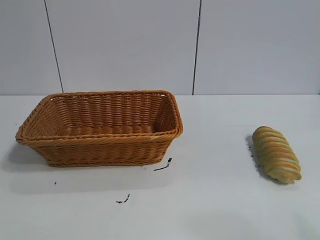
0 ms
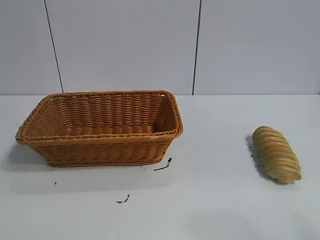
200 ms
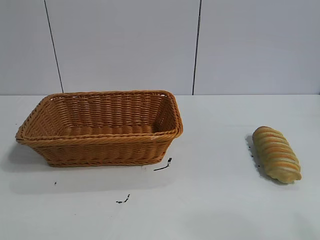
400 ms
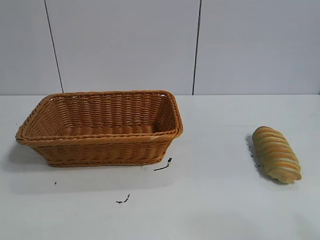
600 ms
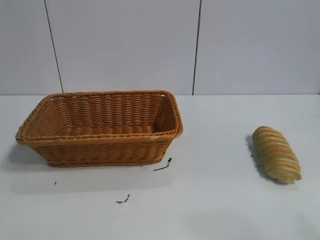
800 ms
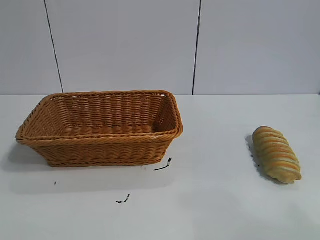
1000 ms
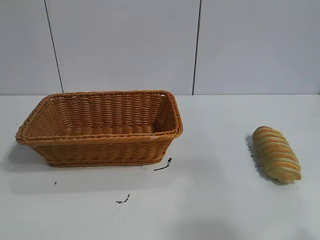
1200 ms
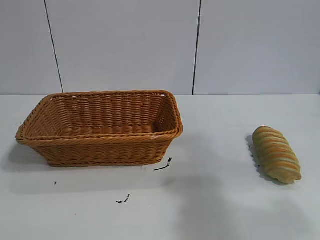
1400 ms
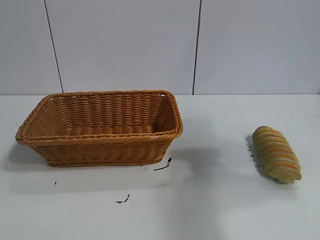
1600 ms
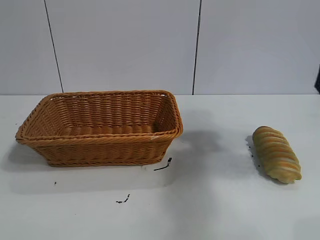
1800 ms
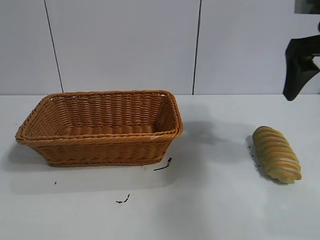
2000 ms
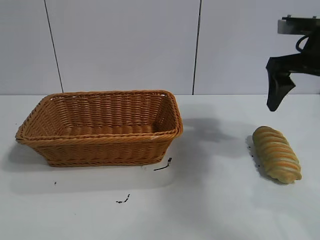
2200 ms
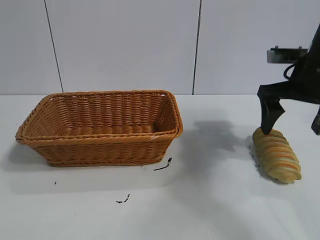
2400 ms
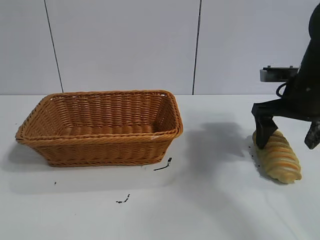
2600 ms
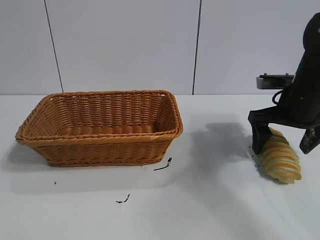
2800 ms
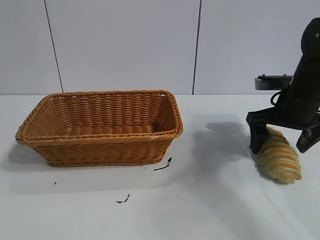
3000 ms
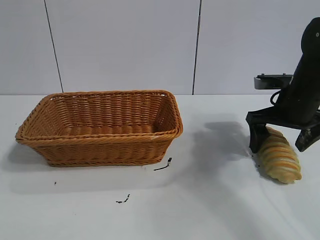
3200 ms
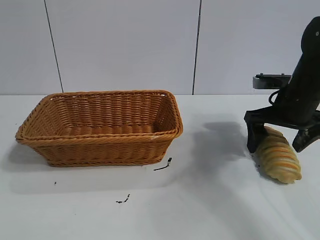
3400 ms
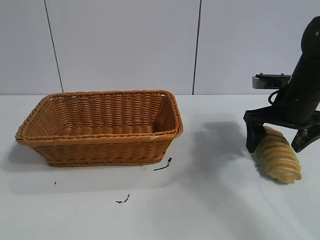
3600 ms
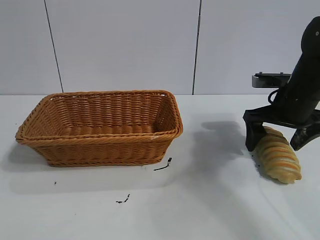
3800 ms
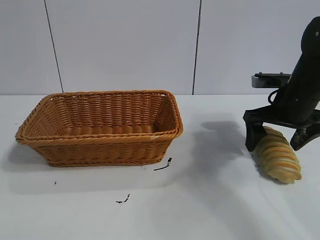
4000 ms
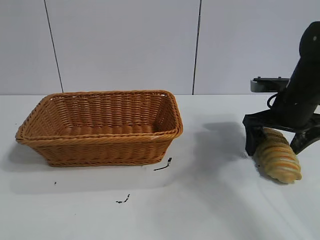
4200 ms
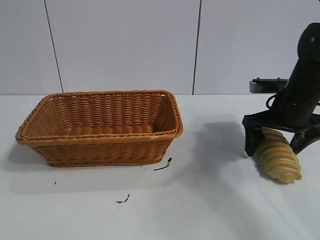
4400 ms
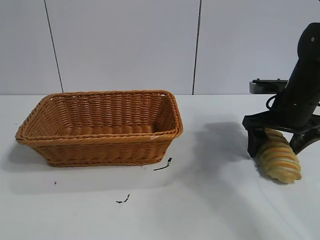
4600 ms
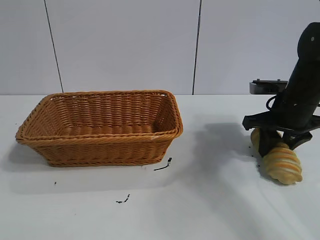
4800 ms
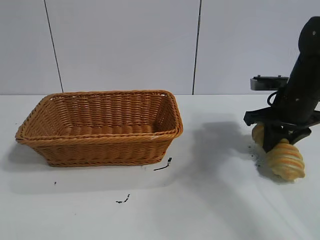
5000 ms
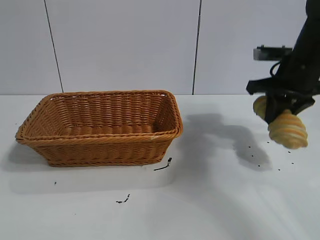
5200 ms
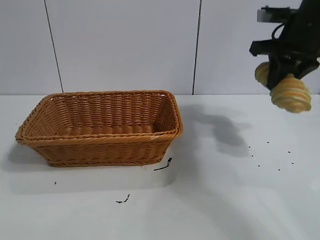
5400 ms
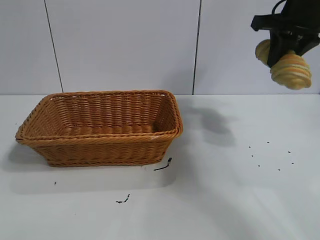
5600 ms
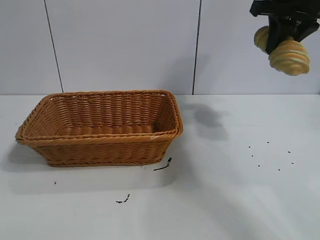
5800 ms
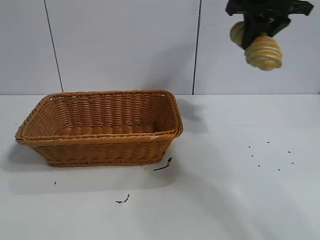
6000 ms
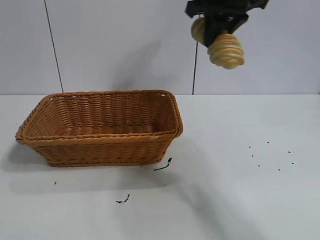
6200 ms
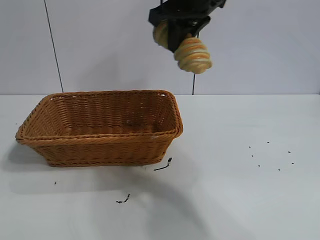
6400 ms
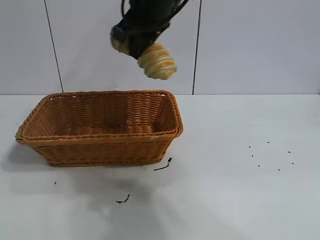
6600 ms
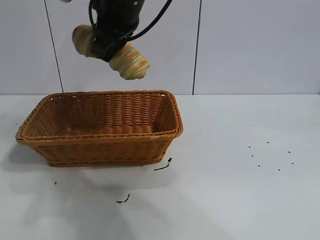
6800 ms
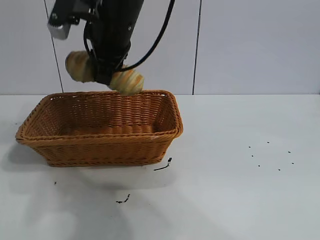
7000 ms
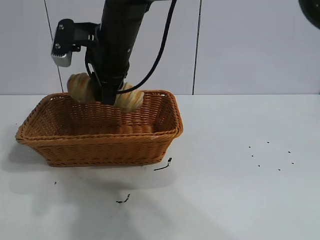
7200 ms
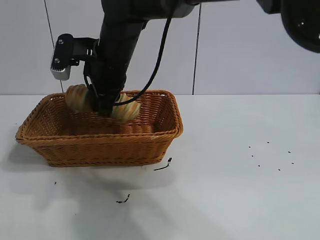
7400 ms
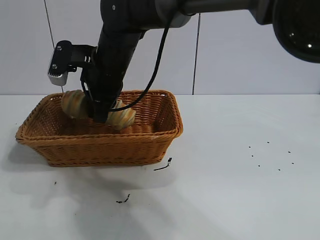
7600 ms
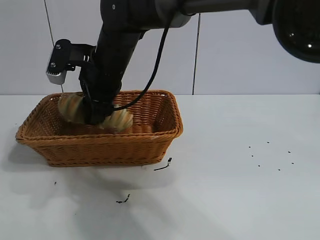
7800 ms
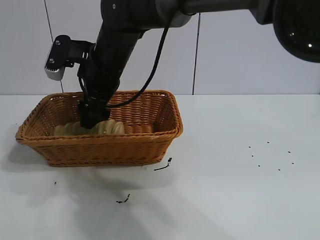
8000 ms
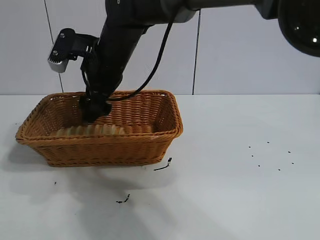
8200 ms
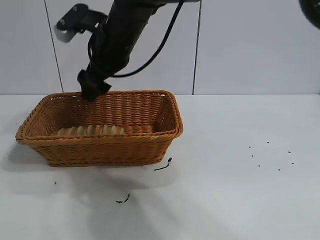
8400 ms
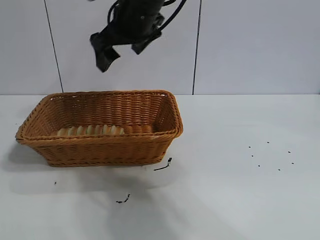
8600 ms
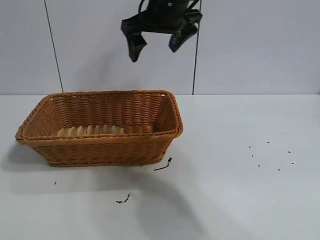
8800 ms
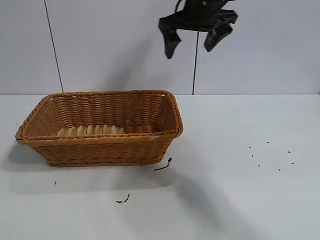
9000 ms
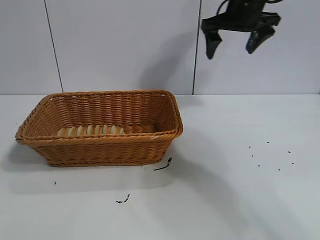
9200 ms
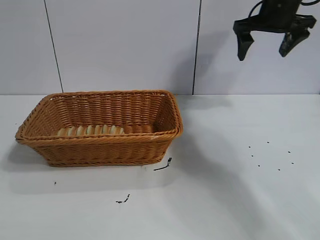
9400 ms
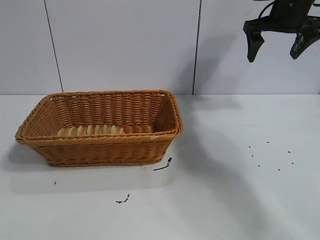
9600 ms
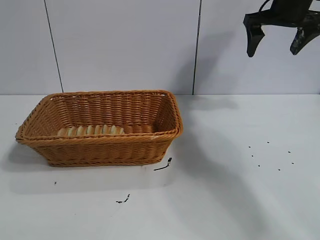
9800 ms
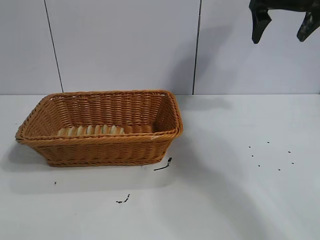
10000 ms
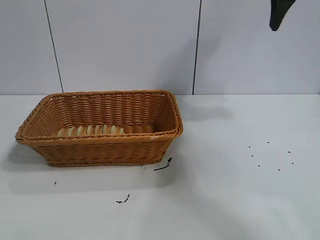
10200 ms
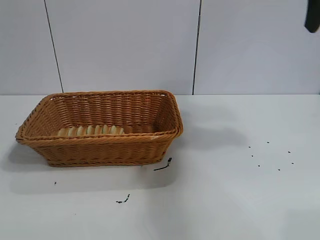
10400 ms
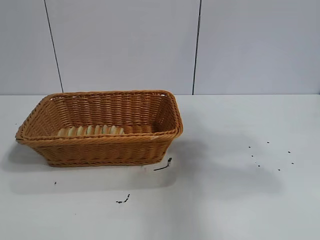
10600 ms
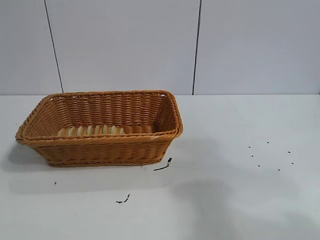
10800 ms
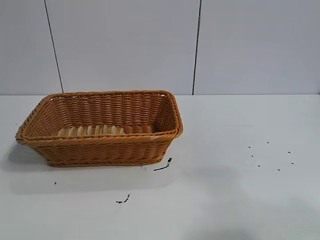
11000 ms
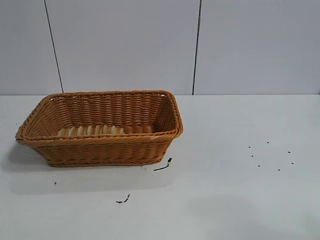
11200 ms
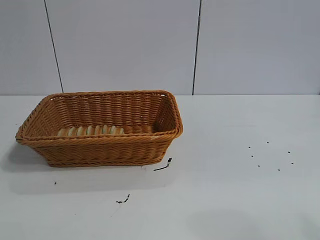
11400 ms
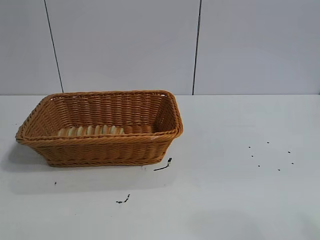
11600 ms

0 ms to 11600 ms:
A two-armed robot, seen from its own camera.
Task of the whole recording: pick up the long bread and put it into the basket.
Step, 1800 ms to 5000 ms: Grasp the long bread with right gripper.
Step, 5200 ms to 8200 ms: Place the long bread in the basket with right gripper.
